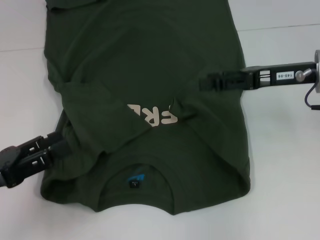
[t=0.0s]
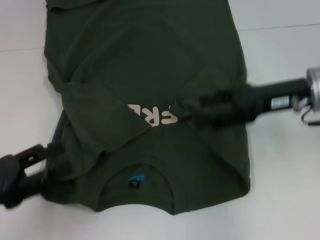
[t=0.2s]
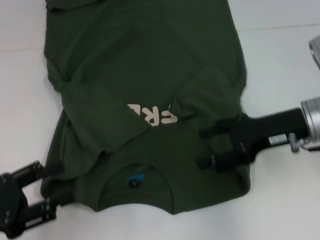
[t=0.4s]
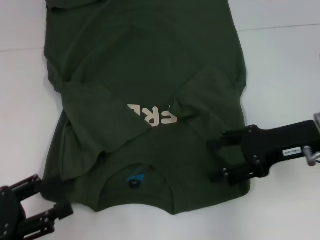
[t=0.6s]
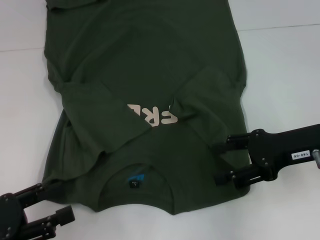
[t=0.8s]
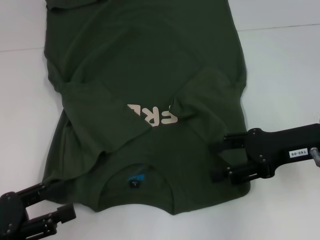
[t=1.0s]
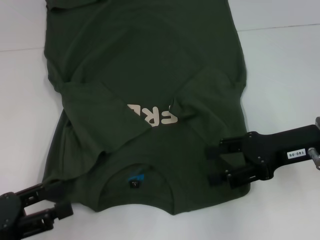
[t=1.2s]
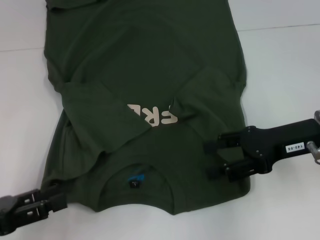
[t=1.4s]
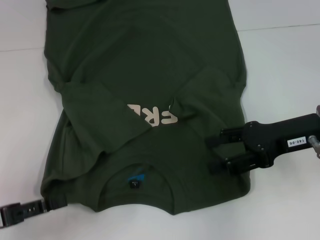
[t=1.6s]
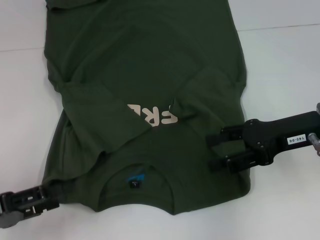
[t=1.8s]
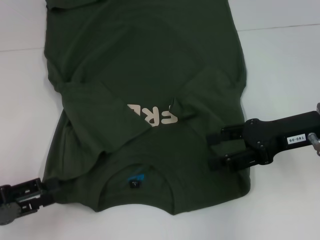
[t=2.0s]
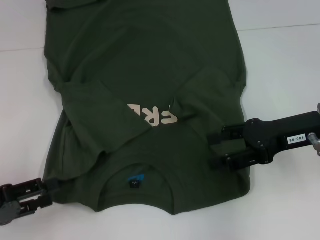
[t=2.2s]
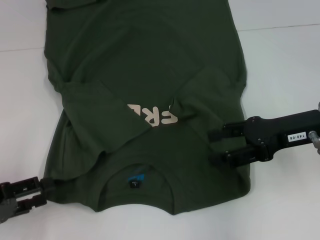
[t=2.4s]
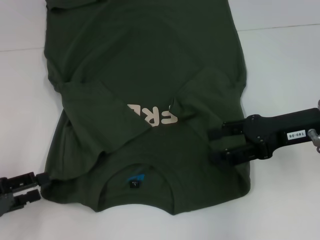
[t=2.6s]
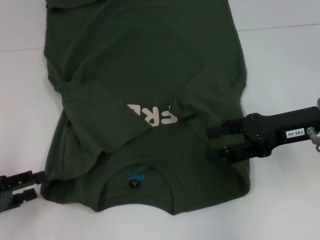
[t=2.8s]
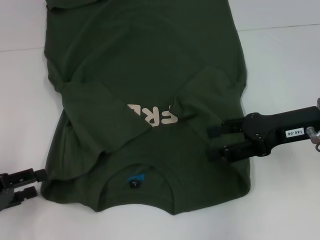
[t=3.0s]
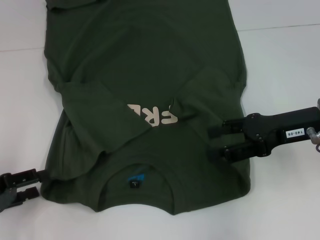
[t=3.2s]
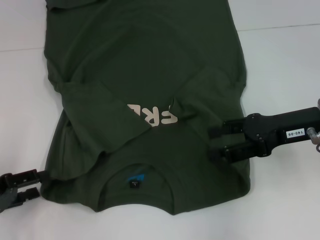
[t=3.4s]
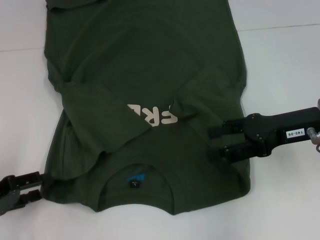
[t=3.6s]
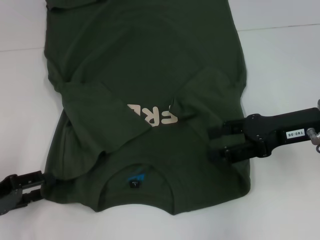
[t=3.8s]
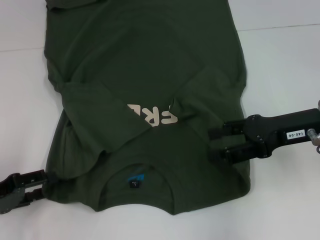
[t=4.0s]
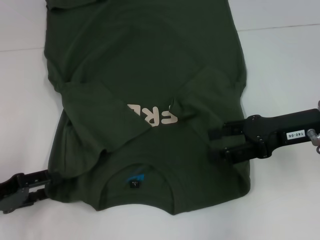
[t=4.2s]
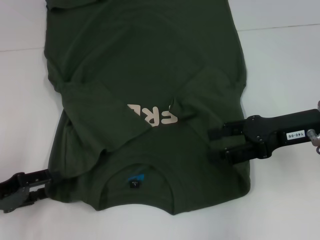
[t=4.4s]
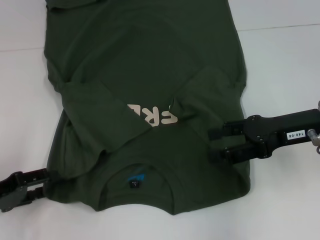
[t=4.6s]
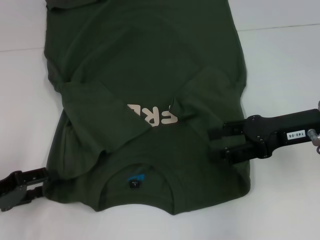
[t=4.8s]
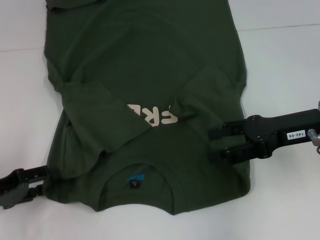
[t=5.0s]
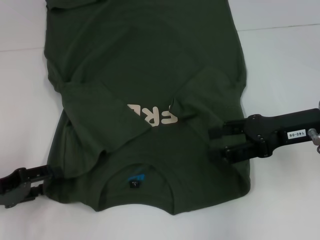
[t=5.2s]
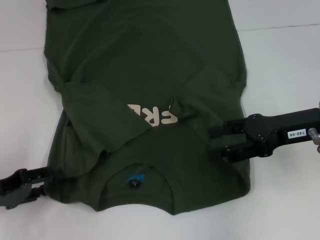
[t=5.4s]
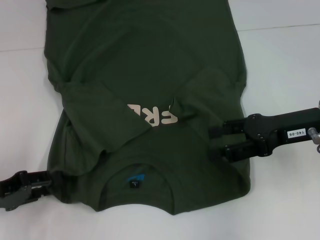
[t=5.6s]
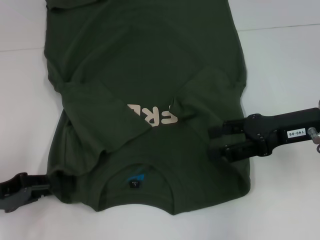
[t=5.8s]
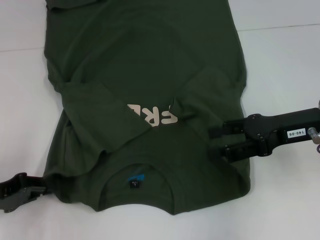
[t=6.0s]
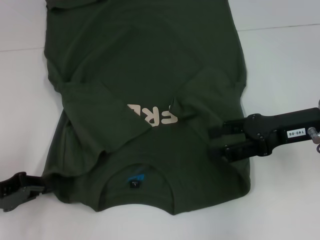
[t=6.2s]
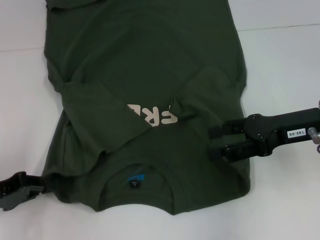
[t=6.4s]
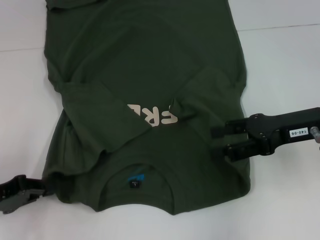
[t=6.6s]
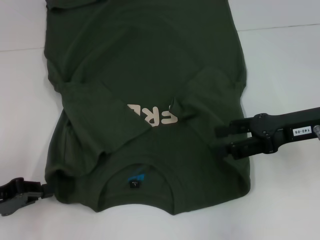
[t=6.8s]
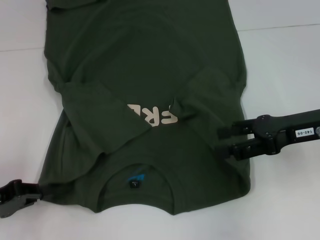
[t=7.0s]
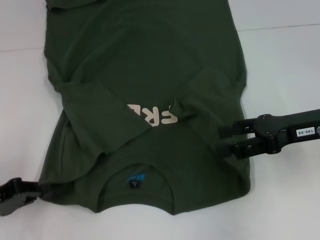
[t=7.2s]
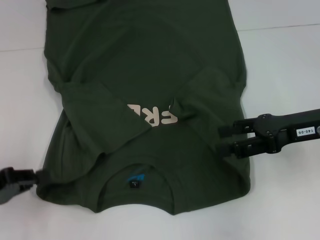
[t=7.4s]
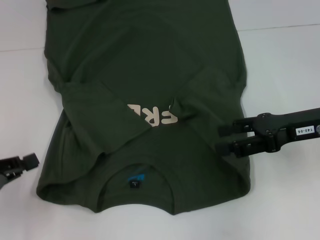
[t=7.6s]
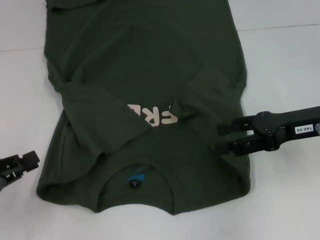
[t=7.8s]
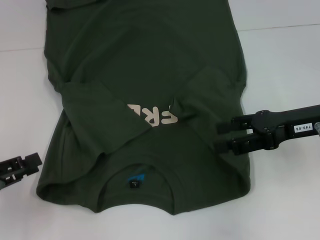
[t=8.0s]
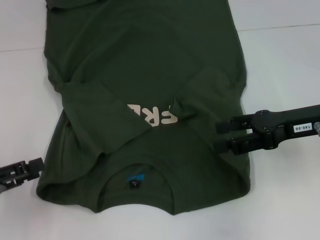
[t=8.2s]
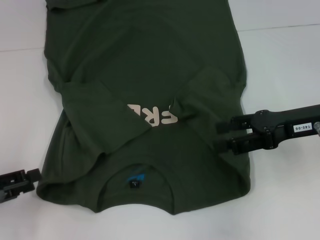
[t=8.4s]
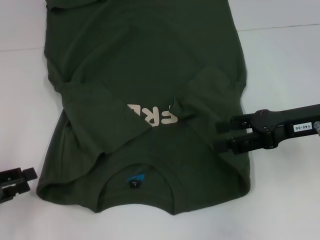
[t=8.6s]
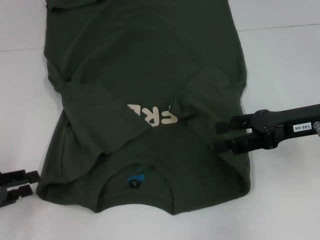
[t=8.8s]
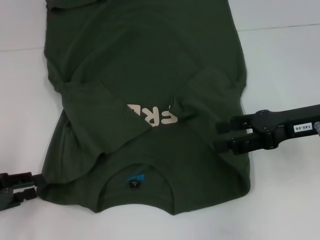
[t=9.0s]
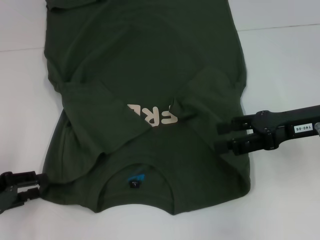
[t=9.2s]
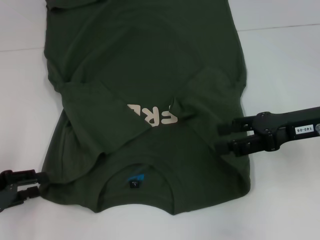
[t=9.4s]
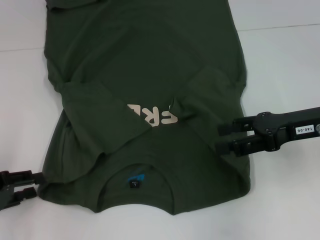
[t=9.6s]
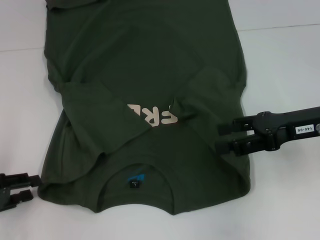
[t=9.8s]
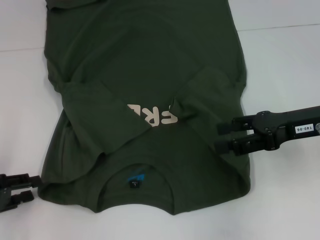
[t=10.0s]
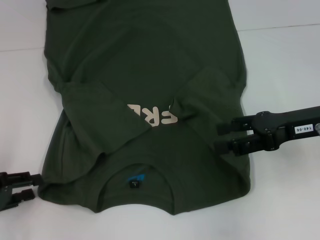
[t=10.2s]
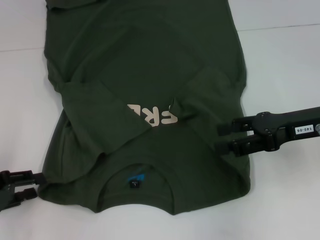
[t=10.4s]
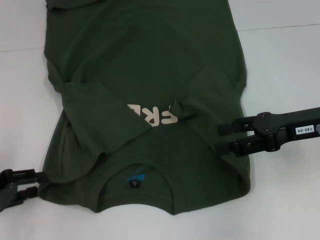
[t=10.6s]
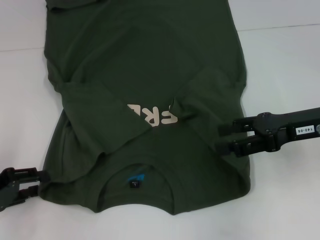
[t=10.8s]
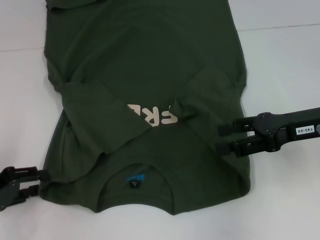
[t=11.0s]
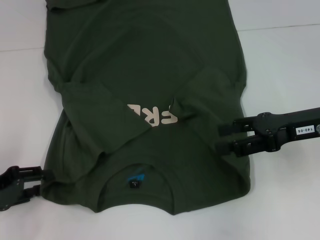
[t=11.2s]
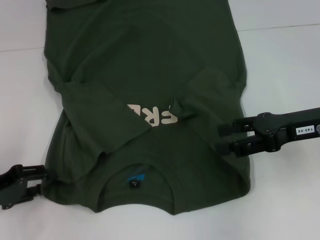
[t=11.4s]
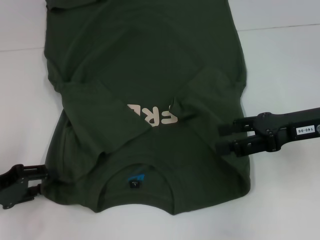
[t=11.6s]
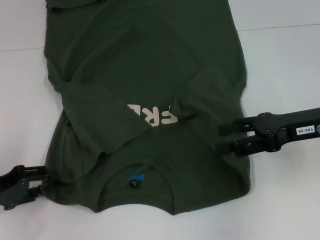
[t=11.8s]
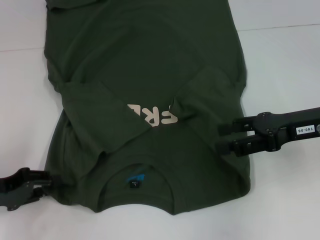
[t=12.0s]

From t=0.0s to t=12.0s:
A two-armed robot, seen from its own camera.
From t=0.0s to t=1.6s: The right gripper is displaced backward by about 5 cm.
From t=3.0s to t=4.4s: The grippers stay close to where they were, moving slightly.
From t=4.4s to t=6.0s: The left gripper closes up.
From t=6.0s to t=7.6s: The grippers move only a little.
From t=7.6s to t=9.0s: The left gripper opens its fingers.
From t=9.0s to t=10.4s: Both grippers stay about where they are.
From t=10.4s to t=12.0s: The grippers move only a little.

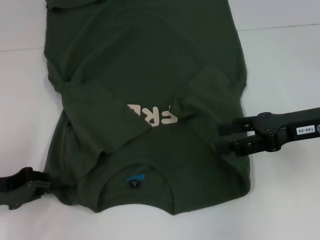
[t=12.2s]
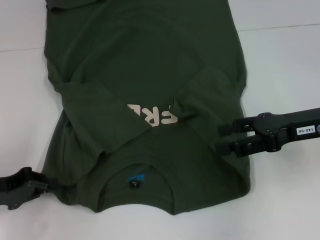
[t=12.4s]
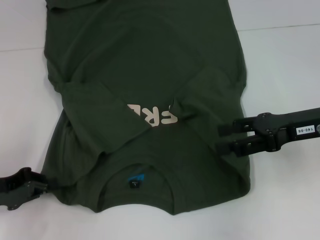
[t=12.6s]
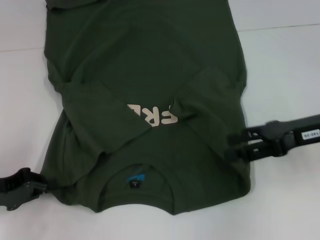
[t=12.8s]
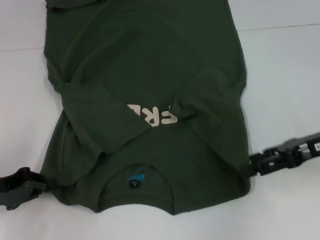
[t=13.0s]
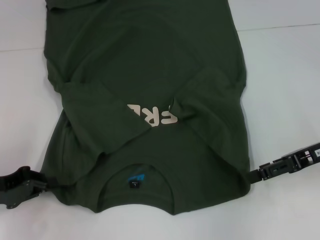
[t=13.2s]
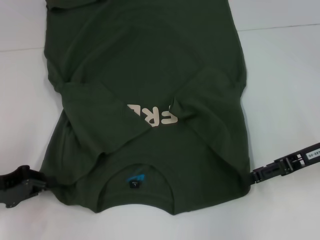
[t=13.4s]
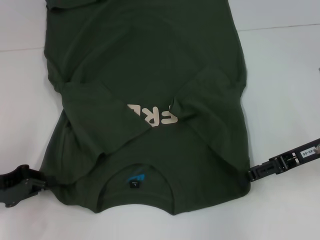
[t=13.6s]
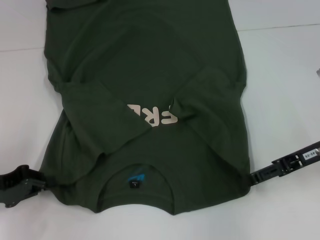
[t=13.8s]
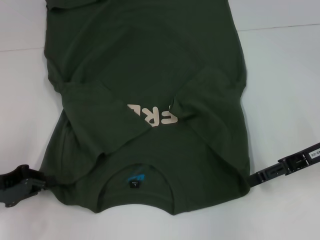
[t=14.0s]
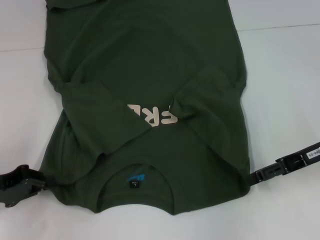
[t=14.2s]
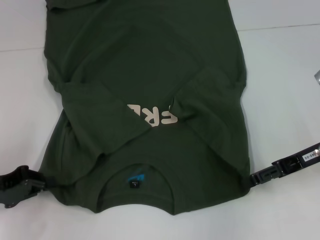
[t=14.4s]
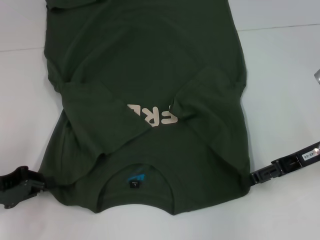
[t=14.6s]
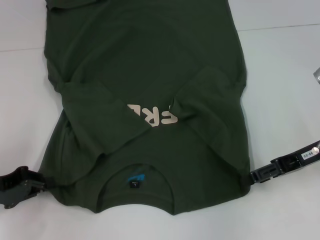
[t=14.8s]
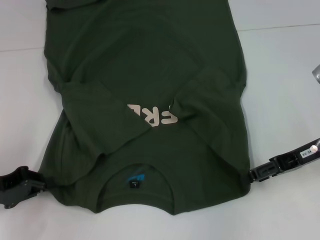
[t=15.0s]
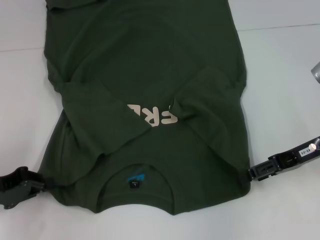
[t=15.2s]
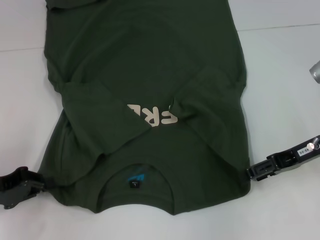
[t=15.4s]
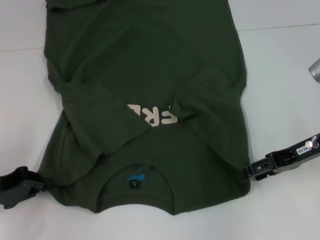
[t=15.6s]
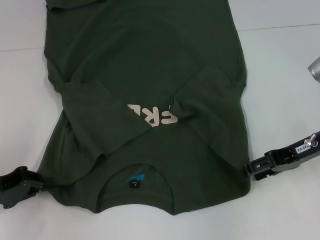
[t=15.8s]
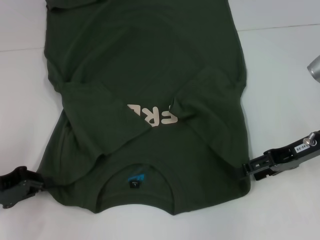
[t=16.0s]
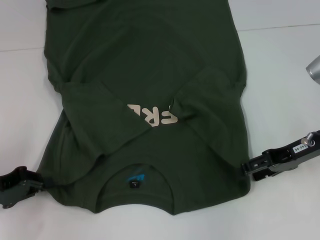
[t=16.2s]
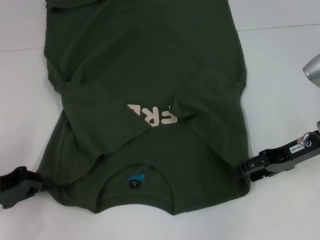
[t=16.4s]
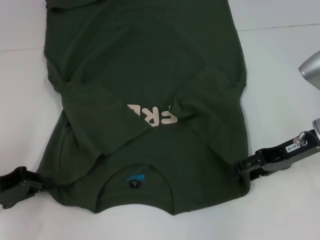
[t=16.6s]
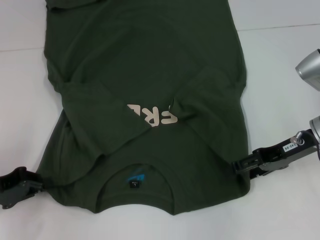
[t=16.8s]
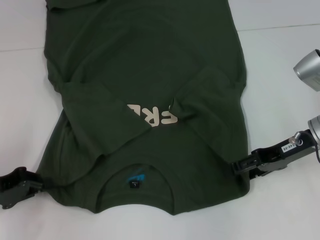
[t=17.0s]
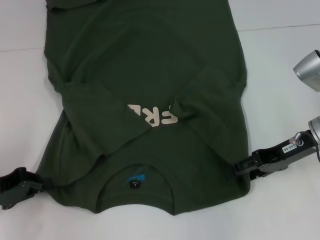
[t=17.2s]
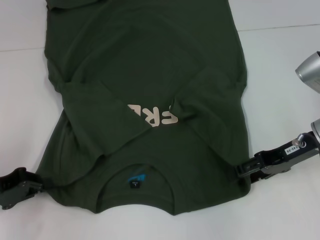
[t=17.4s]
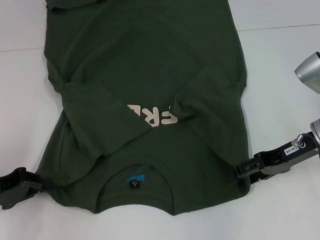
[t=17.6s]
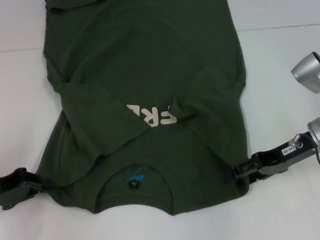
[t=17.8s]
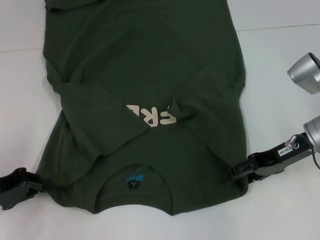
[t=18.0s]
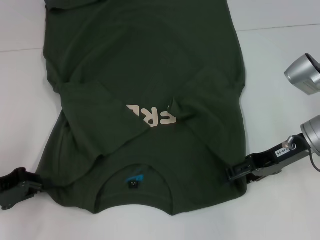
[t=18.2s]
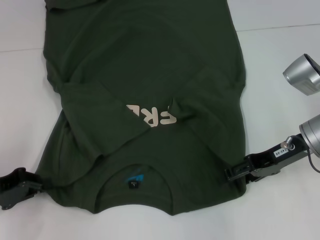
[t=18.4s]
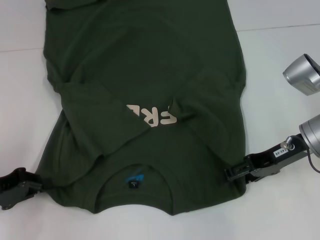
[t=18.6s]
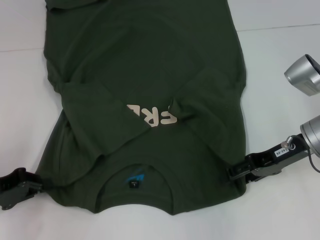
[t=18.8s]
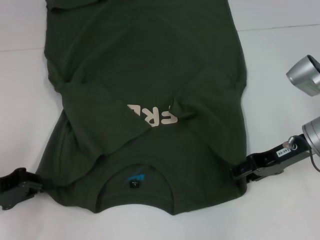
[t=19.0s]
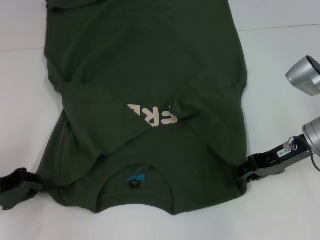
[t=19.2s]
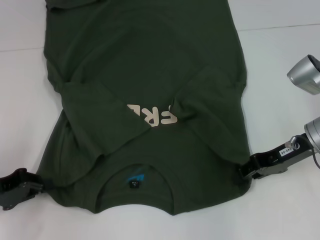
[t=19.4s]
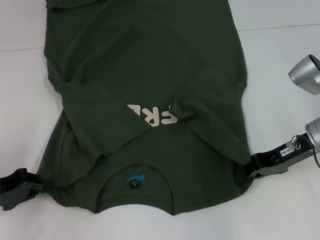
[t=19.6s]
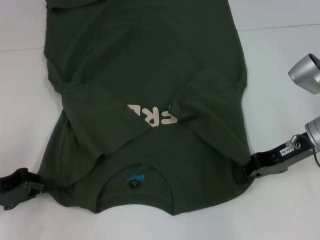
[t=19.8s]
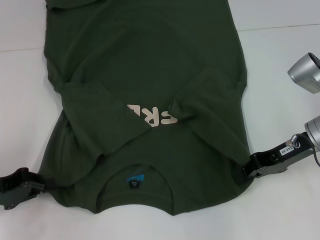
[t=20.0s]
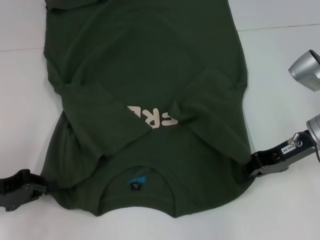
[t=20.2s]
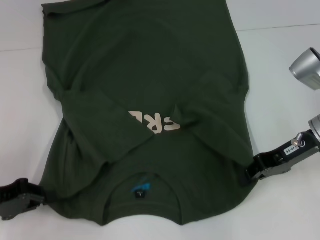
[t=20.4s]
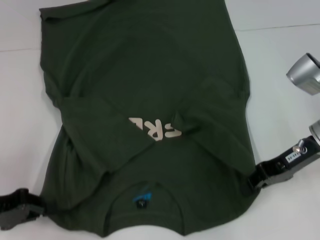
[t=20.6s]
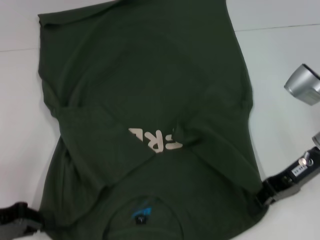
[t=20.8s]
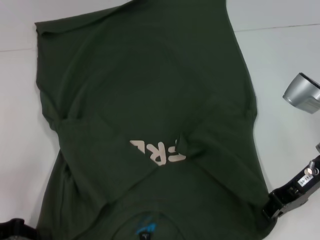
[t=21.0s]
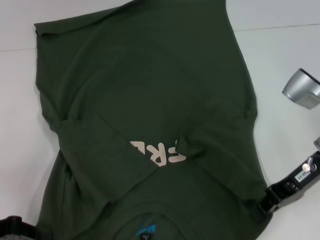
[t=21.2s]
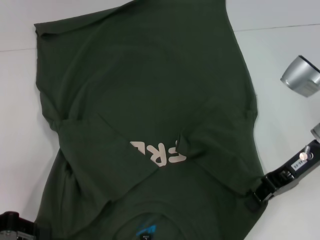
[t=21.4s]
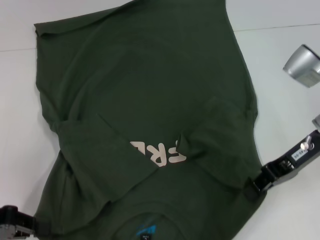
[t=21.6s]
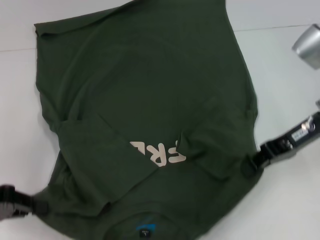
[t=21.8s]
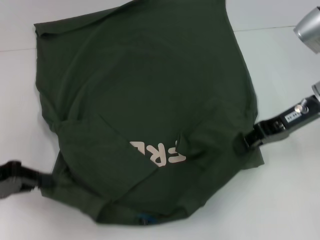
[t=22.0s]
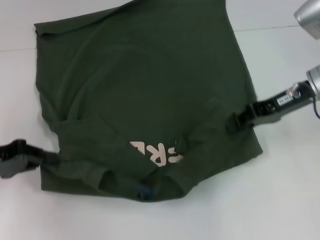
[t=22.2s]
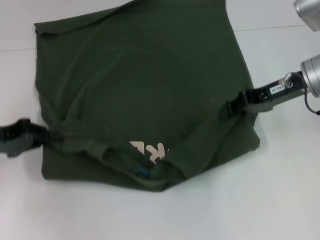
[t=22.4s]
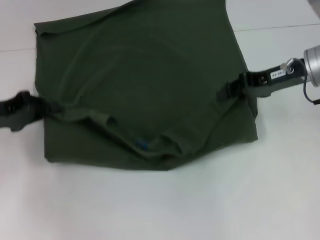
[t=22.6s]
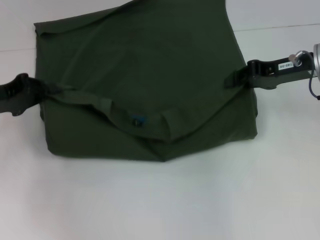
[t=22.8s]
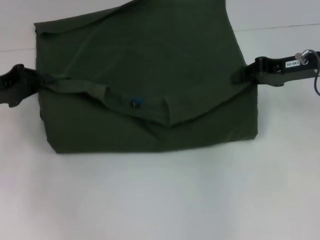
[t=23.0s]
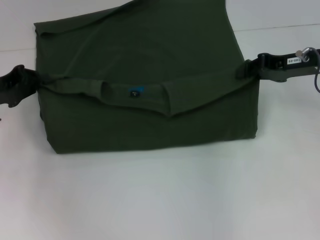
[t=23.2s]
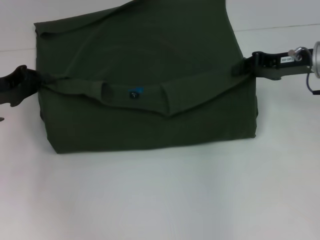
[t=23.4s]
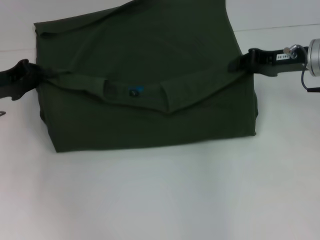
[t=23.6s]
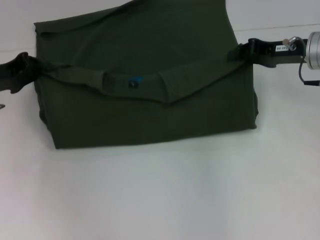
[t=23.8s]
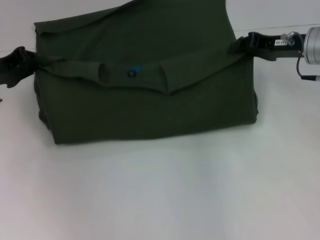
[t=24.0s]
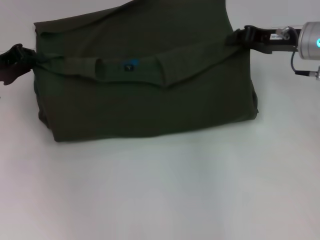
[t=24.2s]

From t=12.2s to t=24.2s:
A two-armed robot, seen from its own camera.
Step, from t=13.0s to t=20.2s: Grab the bottom right corner with your right hand.
From t=12.2s to t=13.8s: The left gripper closes up.
From t=13.8s to t=18.2s: The grippers stay close to where they were, moving slightly.
From t=18.2s to t=19.8s: The right gripper closes up.
From t=21.2s to t=22.6s: The grippers both shift forward by some 10 cm.
From t=22.6s to t=24.2s: The left gripper shifts roughly 5 cm forward.
